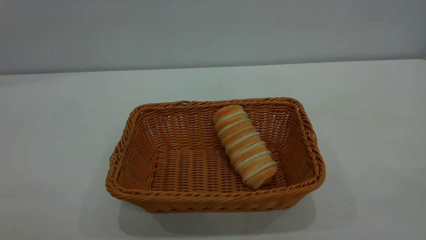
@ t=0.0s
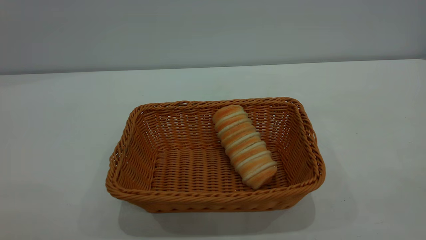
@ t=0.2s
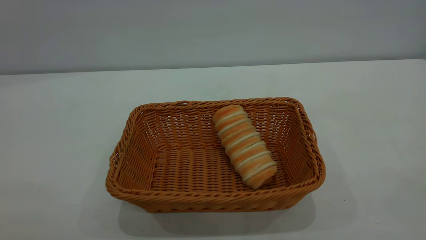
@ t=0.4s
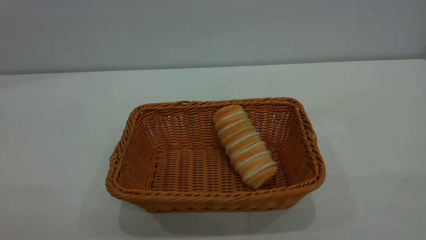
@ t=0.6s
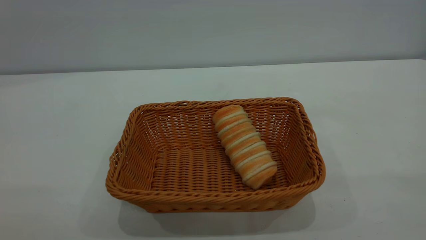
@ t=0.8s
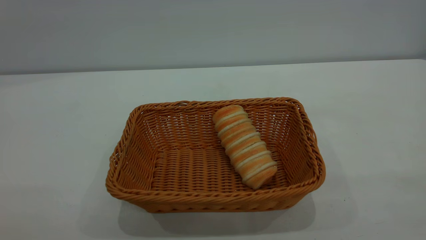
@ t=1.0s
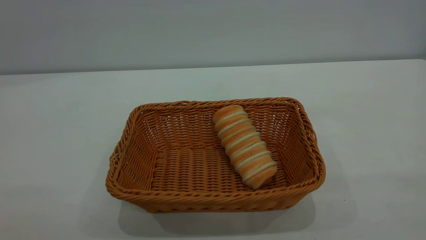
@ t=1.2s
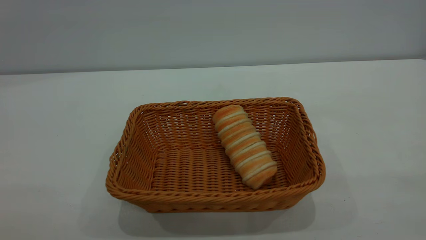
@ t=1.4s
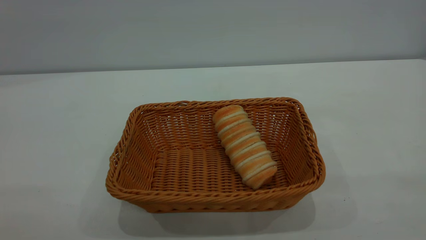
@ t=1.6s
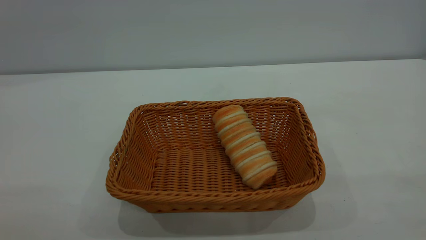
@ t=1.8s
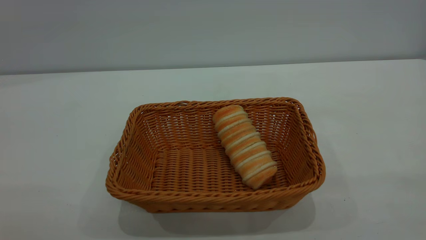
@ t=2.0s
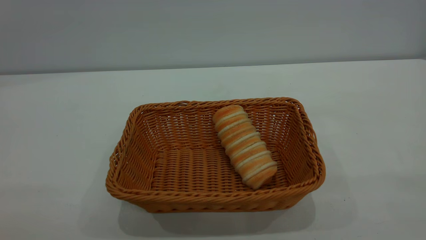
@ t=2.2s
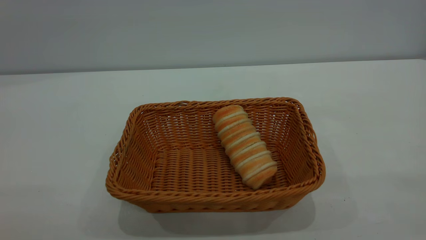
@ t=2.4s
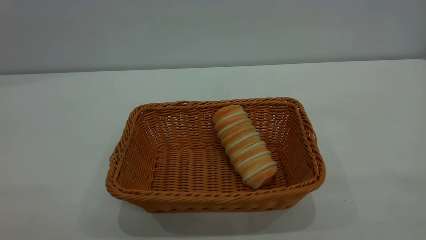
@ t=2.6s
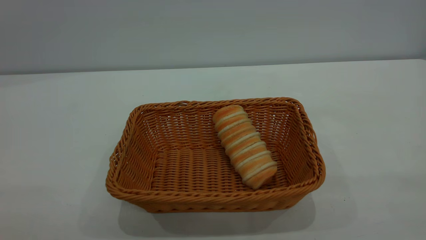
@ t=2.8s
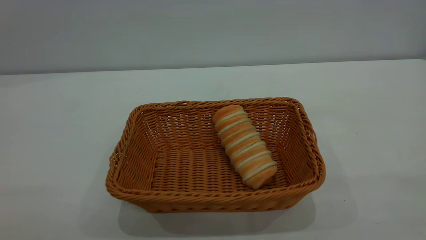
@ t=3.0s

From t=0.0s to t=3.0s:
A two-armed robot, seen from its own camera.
Task of the whole recording: One hand grasps the yellow basket and places it in the middle of the table, while the other hand picks up the long bread and puts it into the yellow basket.
From t=1.6s to t=3.0s: Both grippers stay about where they are.
